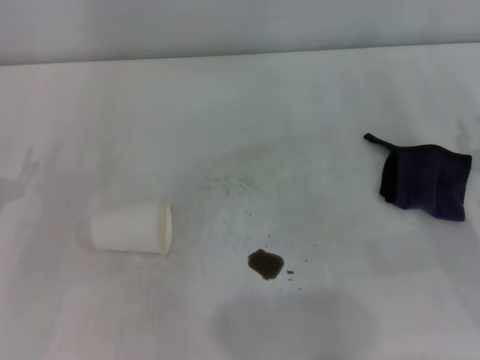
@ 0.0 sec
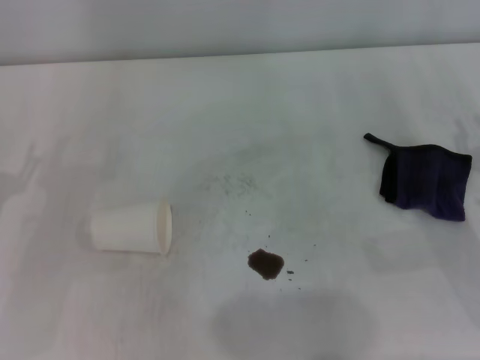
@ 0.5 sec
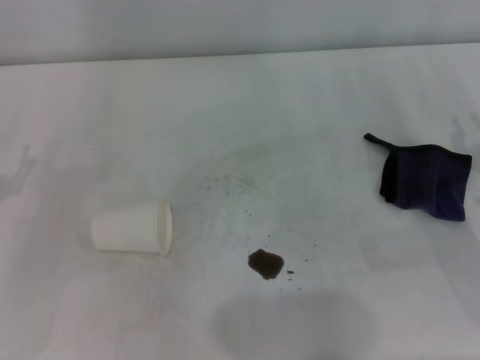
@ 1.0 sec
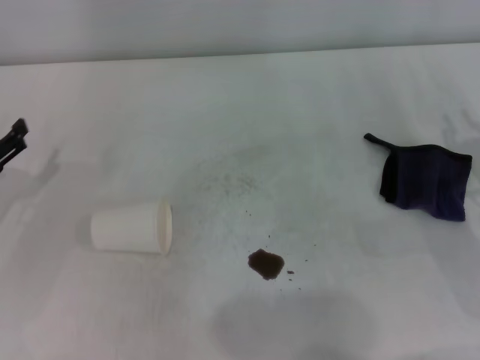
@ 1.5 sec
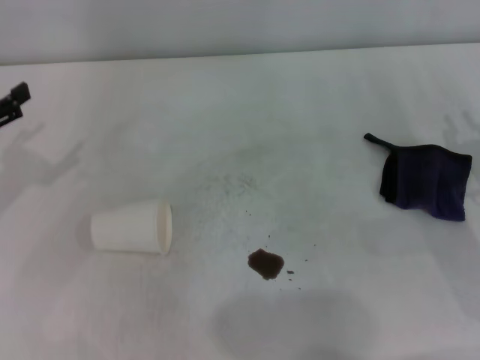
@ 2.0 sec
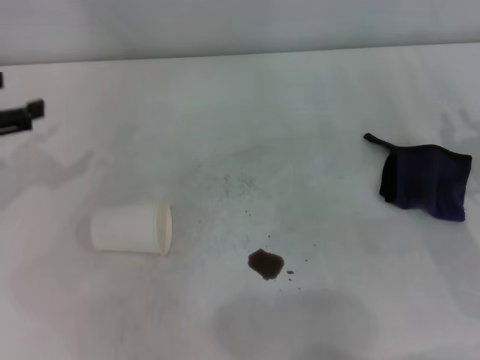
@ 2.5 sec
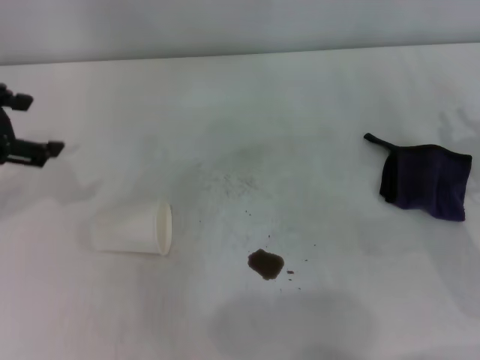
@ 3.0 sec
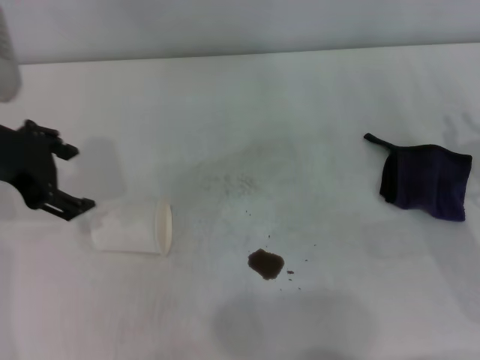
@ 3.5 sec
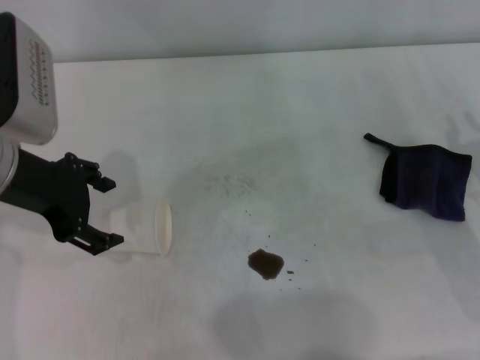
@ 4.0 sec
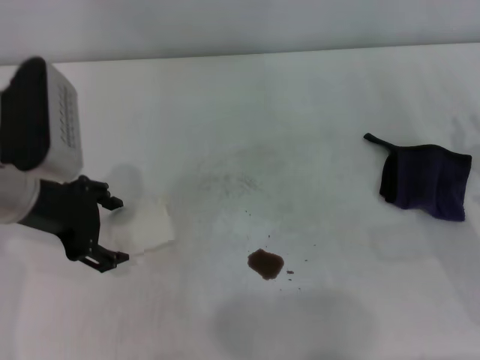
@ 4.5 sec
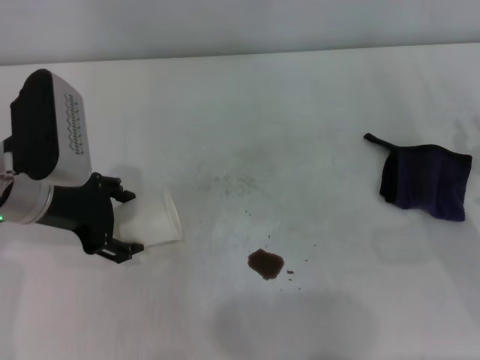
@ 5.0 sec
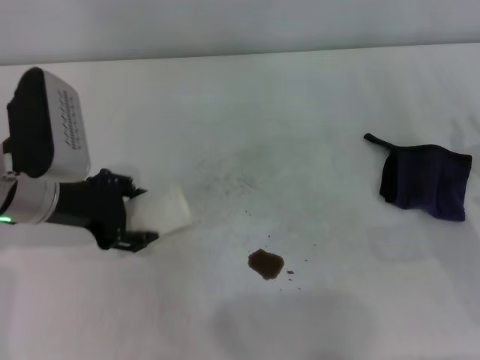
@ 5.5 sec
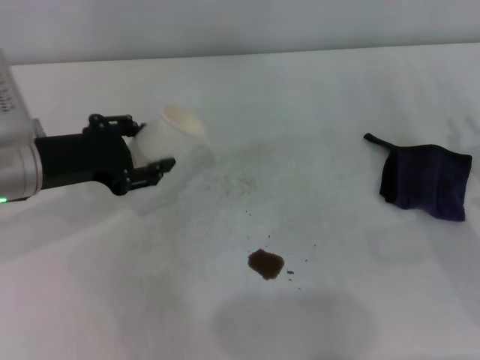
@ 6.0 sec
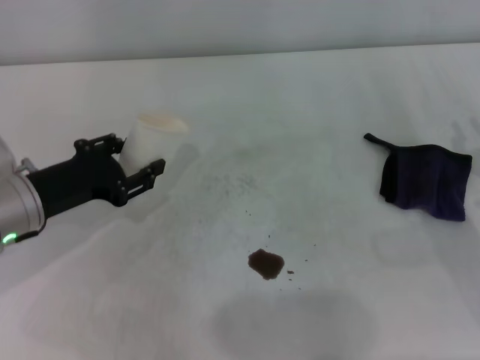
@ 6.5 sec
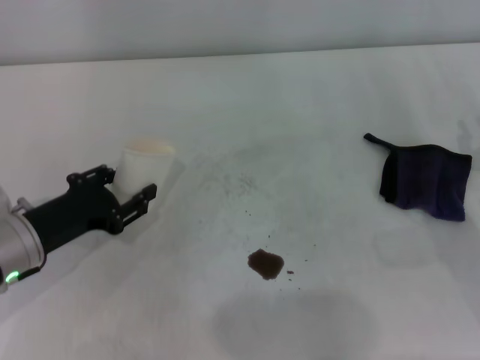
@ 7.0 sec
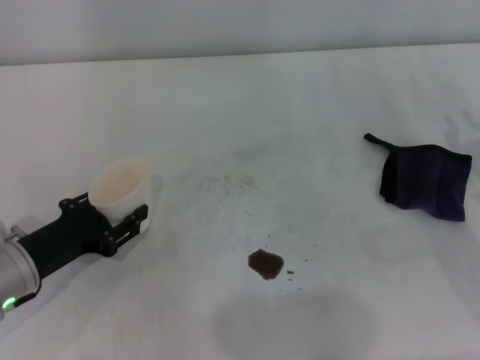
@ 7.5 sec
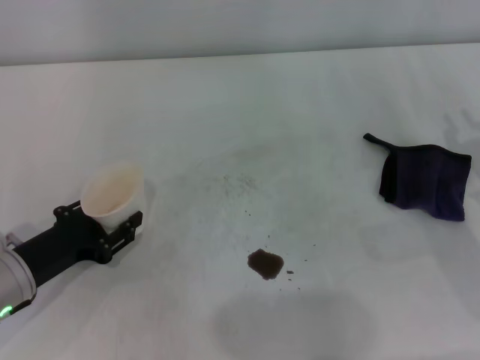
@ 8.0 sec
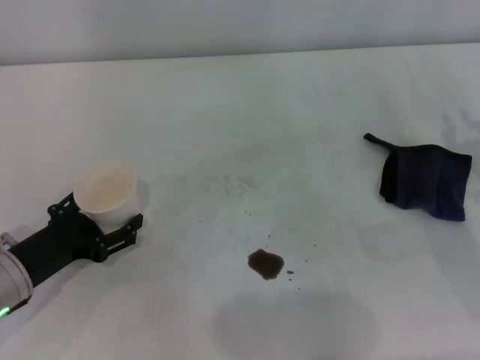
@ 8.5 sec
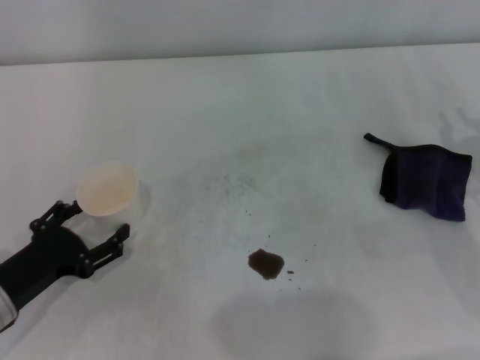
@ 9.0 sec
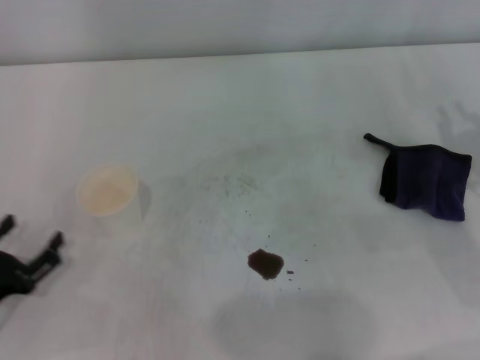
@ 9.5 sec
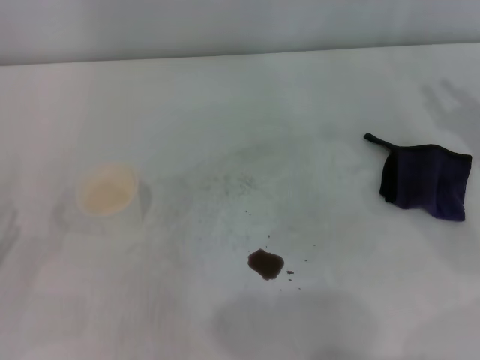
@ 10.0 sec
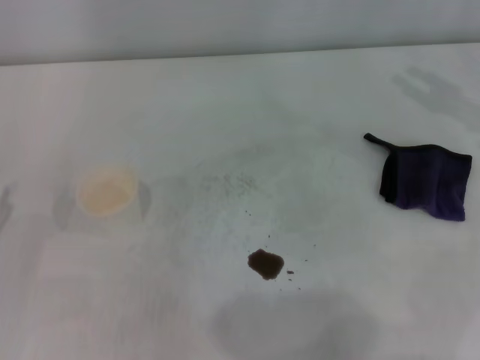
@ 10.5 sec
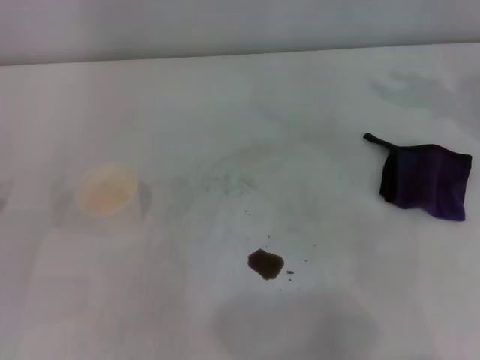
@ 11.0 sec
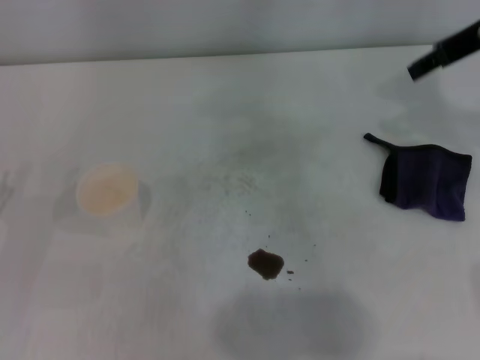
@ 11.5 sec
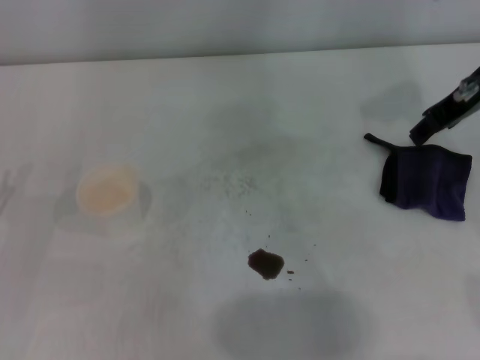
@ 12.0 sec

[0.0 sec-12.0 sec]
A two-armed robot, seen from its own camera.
Step, 0.0 sec to 5.0 sec: Grasp the paper cup with the left gripper.
Step, 5.5 sec to 8.5 sec: Stand the paper cup upright with the left gripper.
2.0 sec to 4.0 sec: The left gripper shifts roughly 15 cm to the right and upward.
4.0 sec to 6.0 sec: The left gripper shifts about 5 cm downward, and closes its fingers.
6.0 sec to 8.0 sec: The left gripper is displaced downward and backward by some 15 cm.
8.0 sec to 10.0 sec: The left gripper heads to the left and backward, covering roughly 10 cm, and opens its fingers.
10.0 sec to 12.0 sec: The right gripper moves upward, to the left and forward, about 15 cm, and opens its fingers.

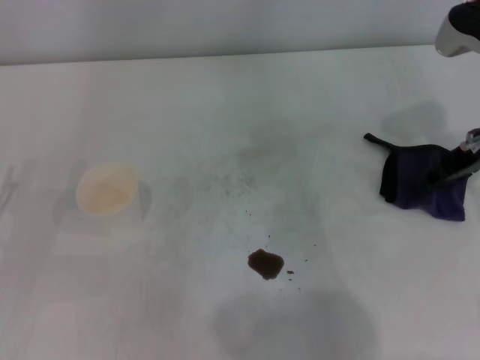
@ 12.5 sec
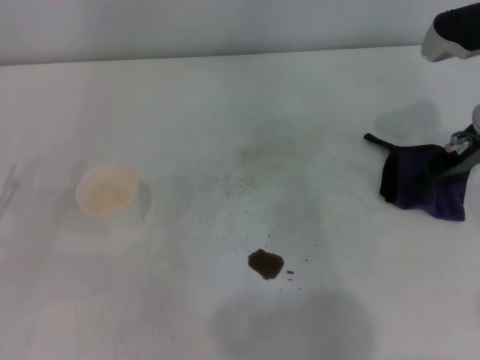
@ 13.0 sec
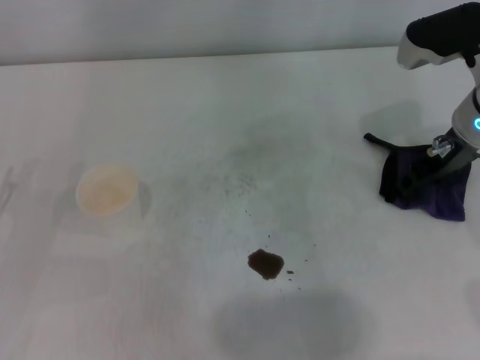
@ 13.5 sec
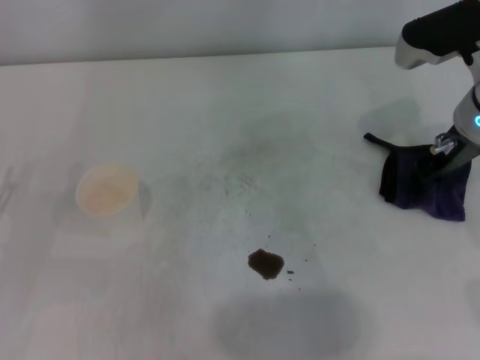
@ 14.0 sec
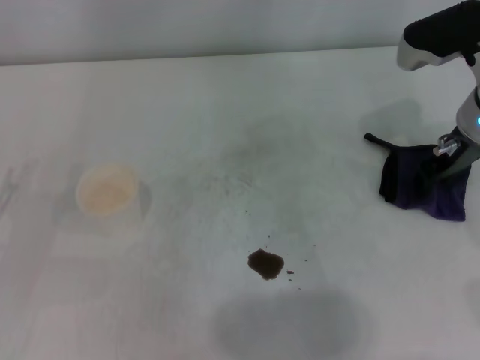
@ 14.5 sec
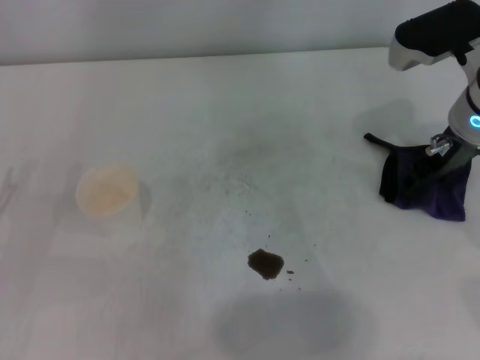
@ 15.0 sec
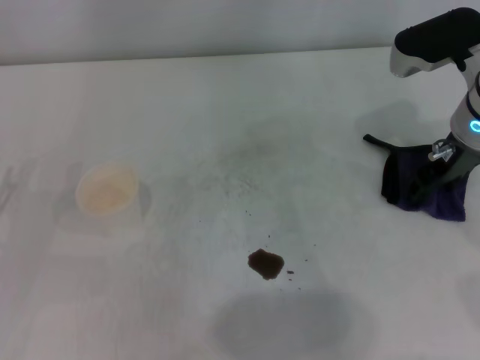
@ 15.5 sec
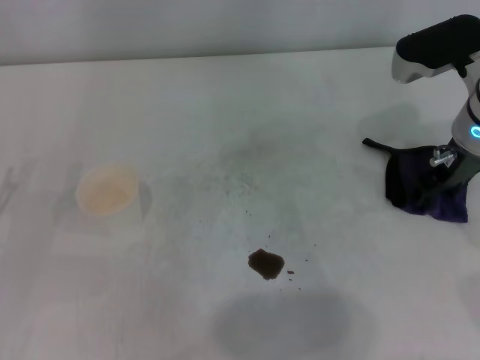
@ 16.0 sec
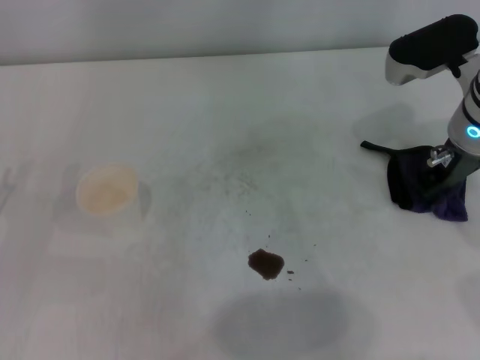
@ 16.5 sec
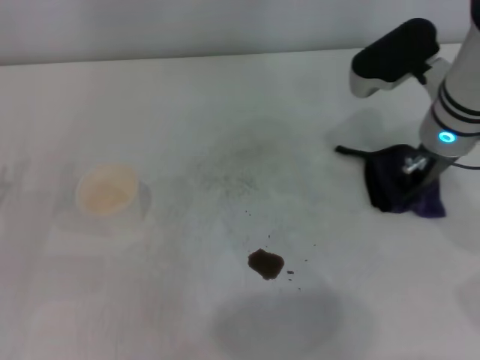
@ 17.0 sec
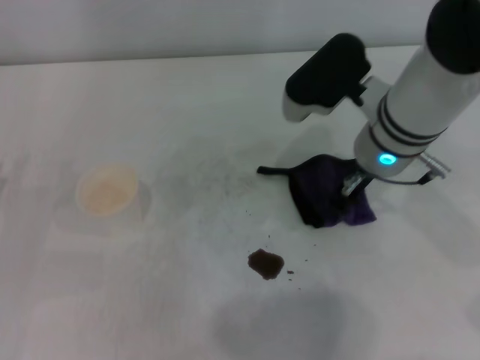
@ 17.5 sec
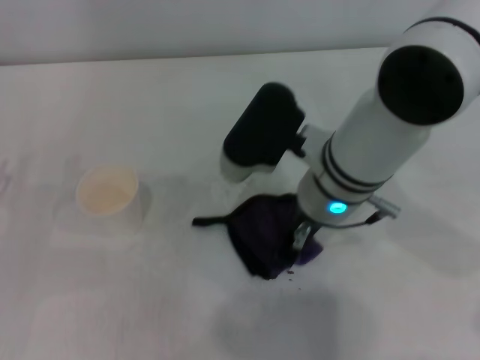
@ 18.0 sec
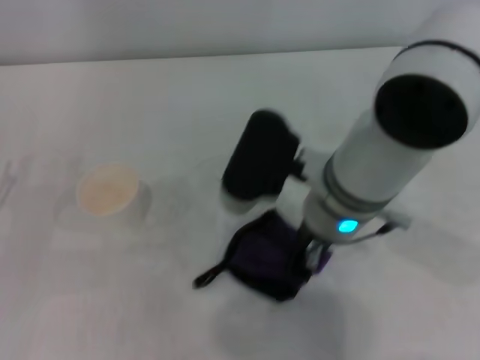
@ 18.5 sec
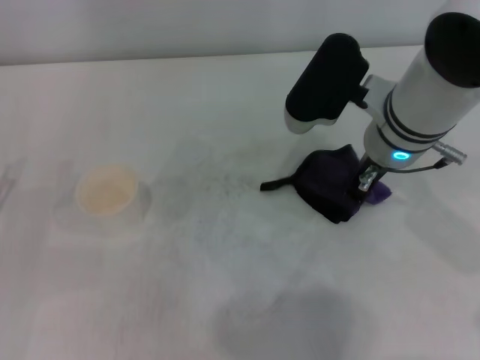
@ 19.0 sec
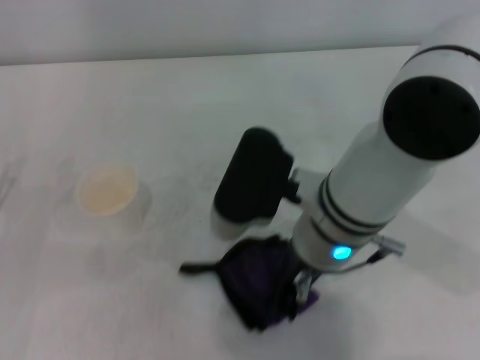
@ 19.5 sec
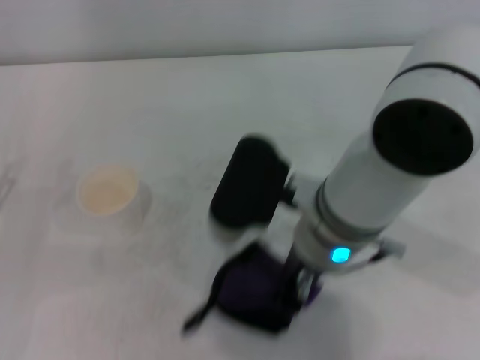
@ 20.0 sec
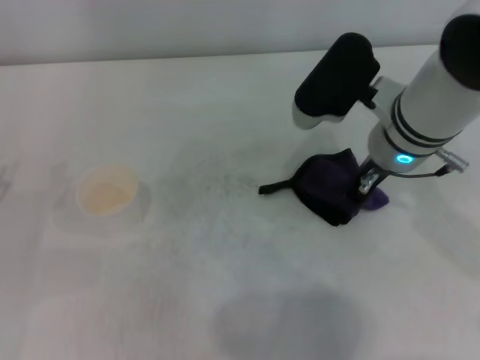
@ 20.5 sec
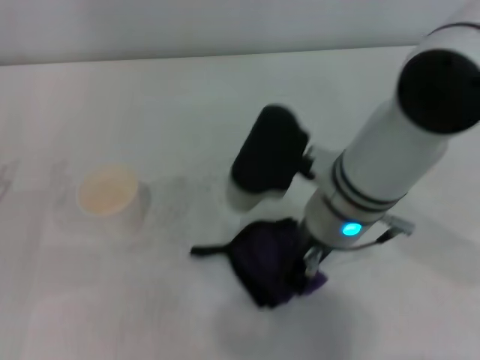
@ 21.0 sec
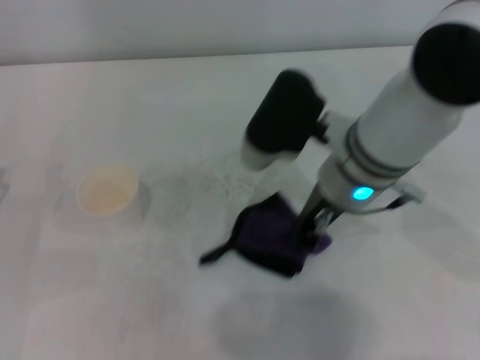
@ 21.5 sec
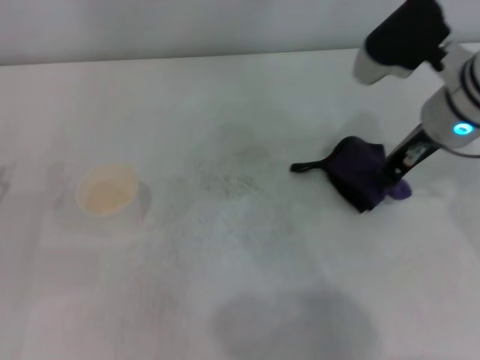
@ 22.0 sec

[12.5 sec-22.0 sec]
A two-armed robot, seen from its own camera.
Step, 12.5 sec to 16.0 sec: Grasp the rag with the right gripper.
12.5 sec to 14.5 sec: The right gripper closes.
14.5 sec to 16.5 sec: The right gripper opens, then closes once more.
16.5 sec to 18.0 sec: The right gripper travels to the left by roughly 15 cm.
20.0 sec to 22.0 sec: The right gripper swings left and right, roughly 15 cm each way, with 2 reversals.

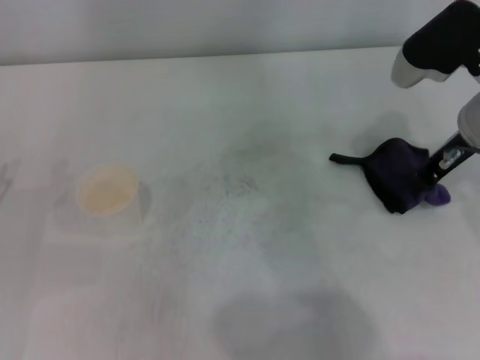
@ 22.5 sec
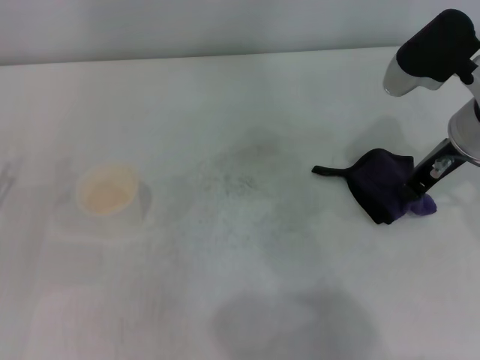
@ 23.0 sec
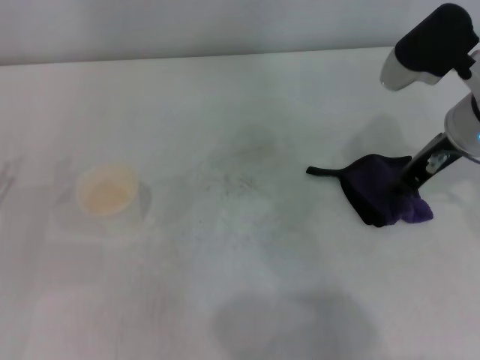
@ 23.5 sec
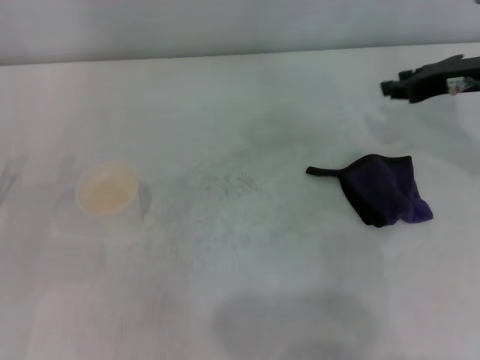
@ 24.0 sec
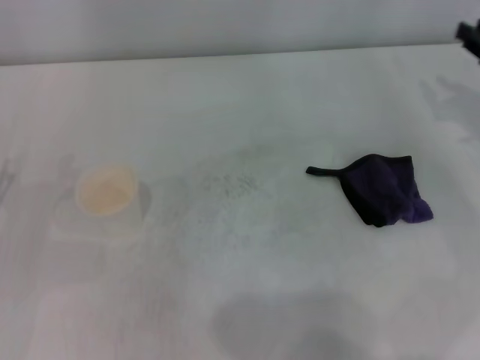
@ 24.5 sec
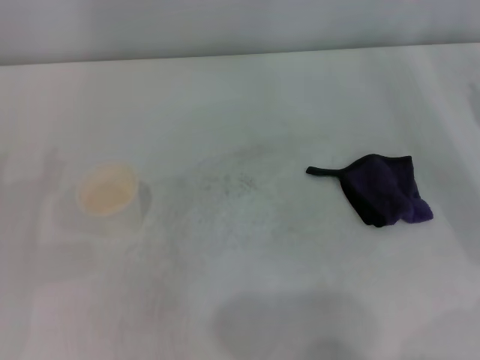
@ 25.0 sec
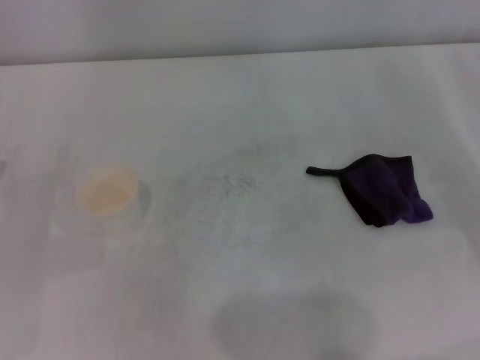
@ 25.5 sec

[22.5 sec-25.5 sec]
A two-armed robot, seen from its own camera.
22.5 sec to 24.0 sec: The right gripper shifts by roughly 5 cm, and opens its fingers.
24.0 sec to 25.5 sec: The right gripper heads to the right, backward and downward, covering roughly 15 cm.
